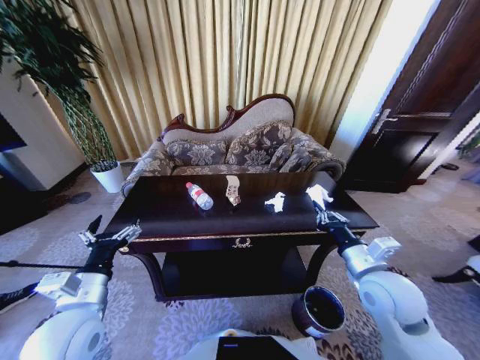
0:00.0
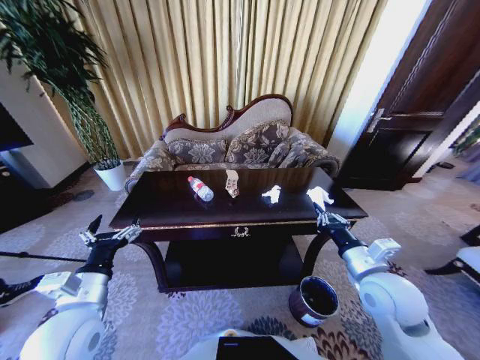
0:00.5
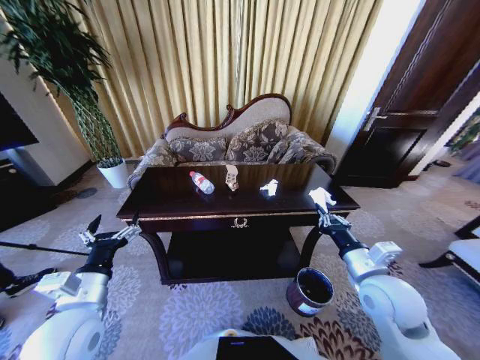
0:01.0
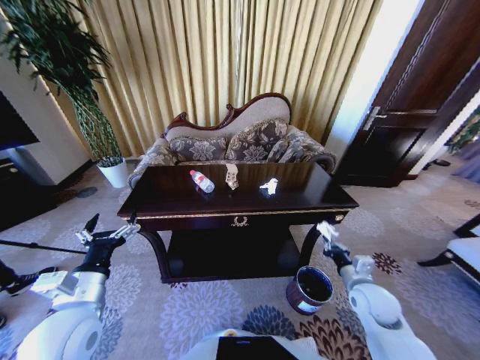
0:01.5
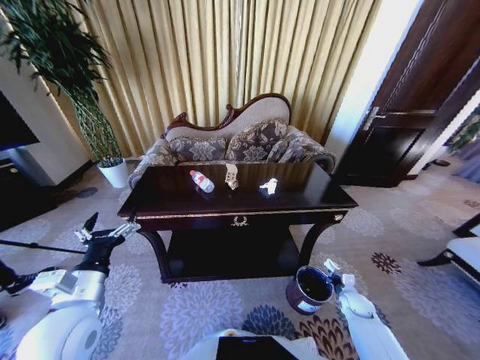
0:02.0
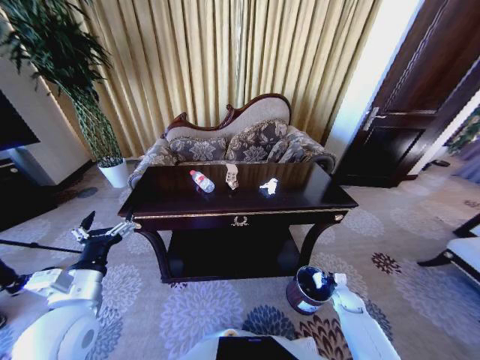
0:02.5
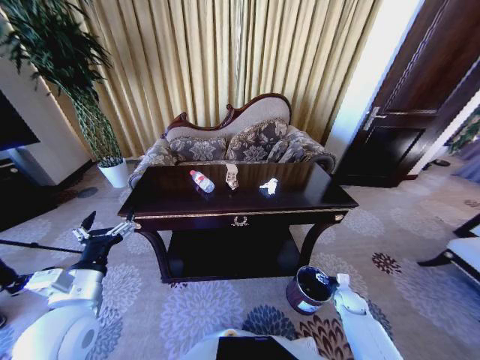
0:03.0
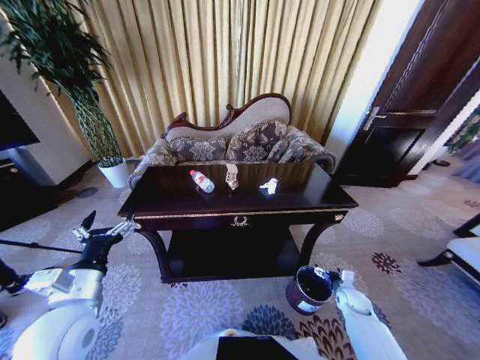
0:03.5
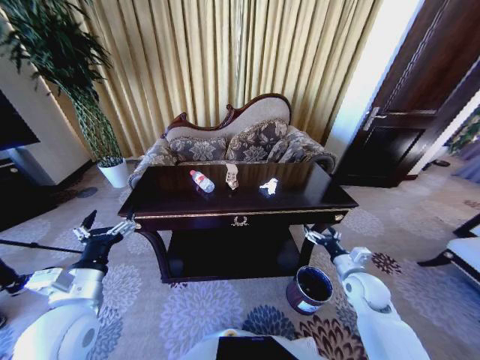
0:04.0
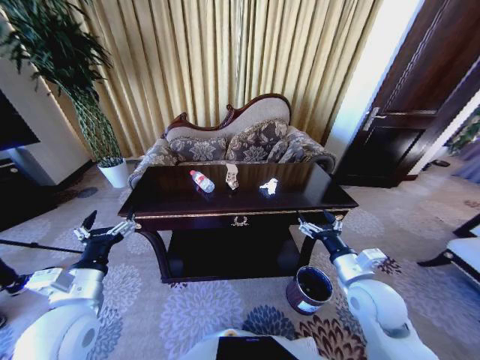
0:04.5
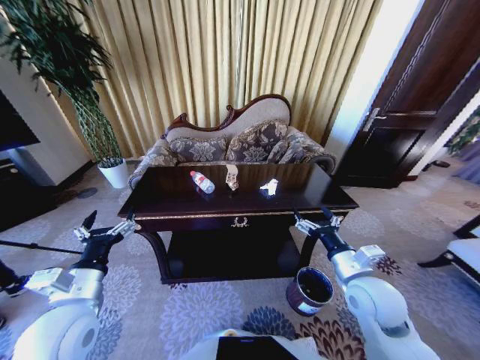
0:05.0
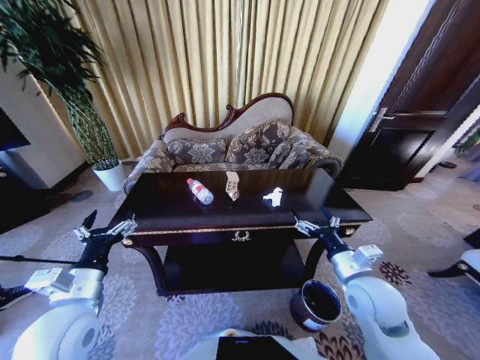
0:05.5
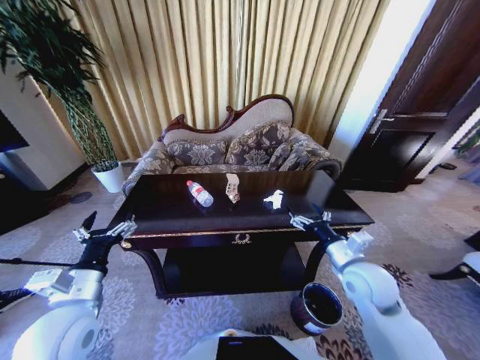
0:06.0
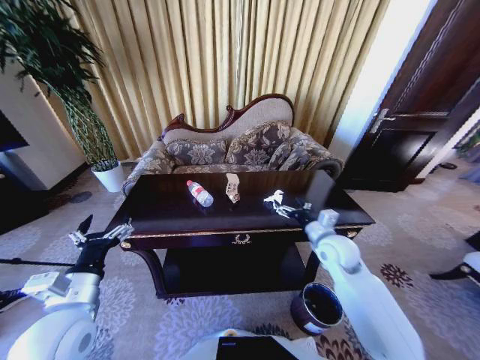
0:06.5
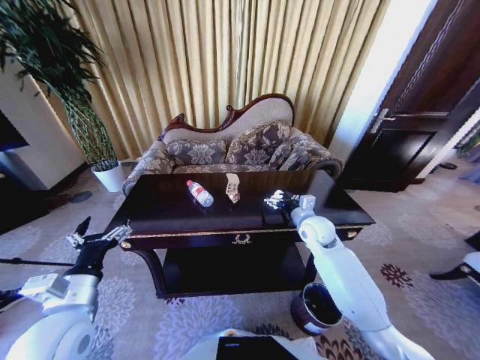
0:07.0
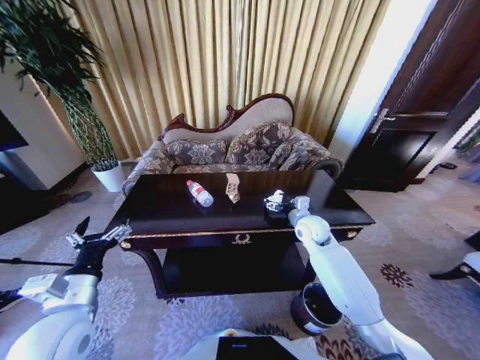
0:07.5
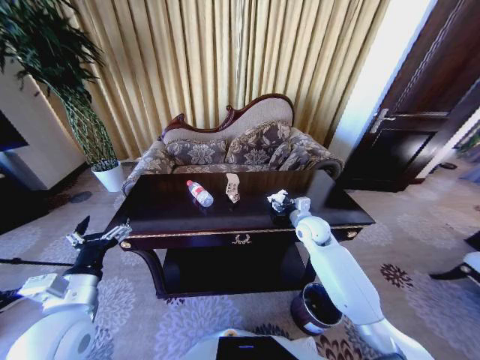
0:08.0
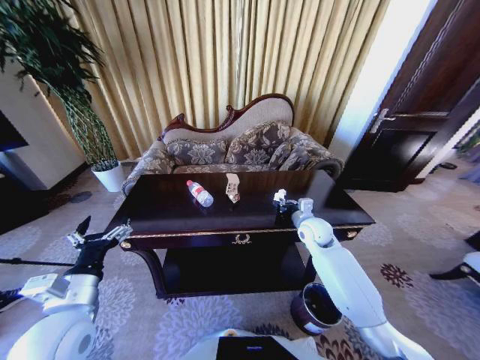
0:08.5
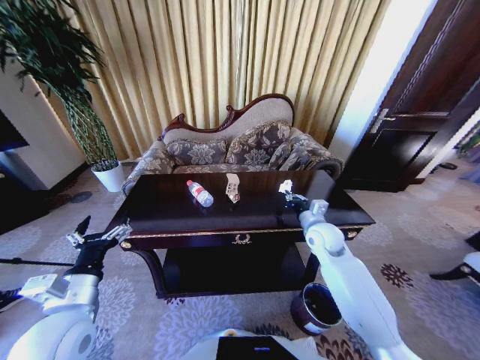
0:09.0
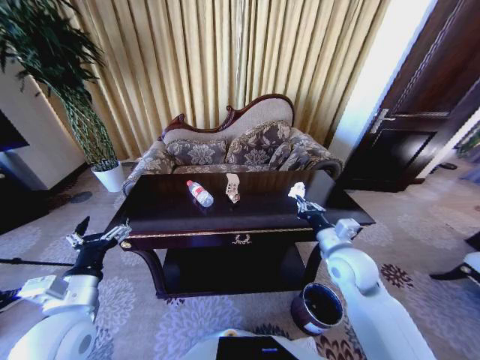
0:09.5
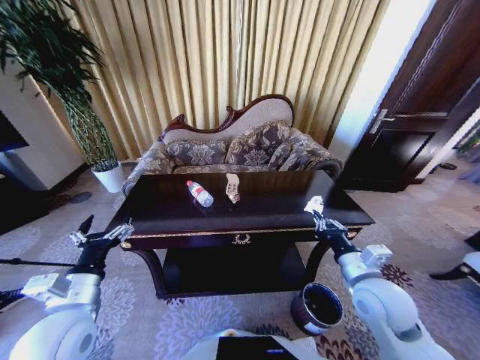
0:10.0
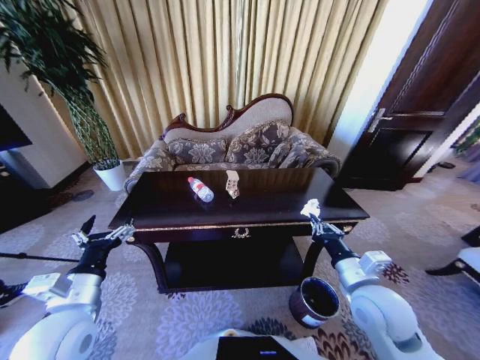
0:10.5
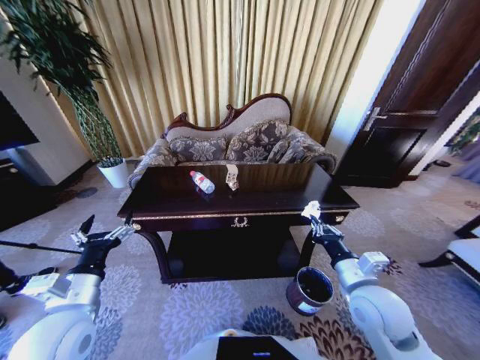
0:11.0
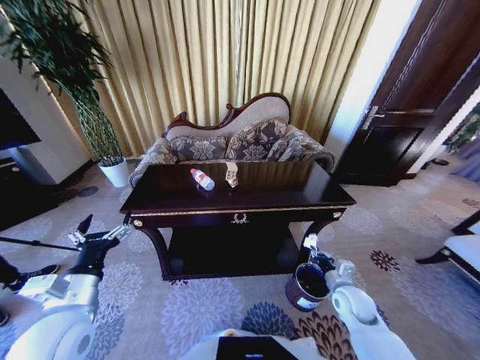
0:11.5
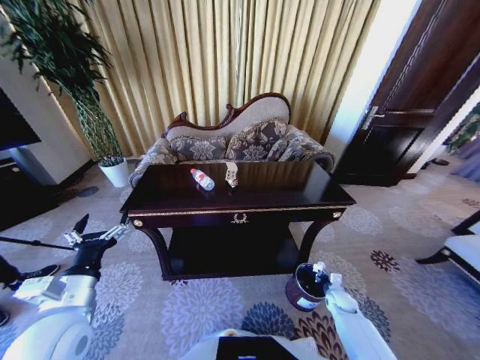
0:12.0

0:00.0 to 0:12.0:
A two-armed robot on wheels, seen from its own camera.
Task of the whole recording: Move to the front of the table and place the trash on the table into the trash bin.
0:00.0 to 0:02.0: The right gripper moves downward and to the right, roughly 35 cm.
0:02.0 to 0:04.0: The right gripper is displaced upward by approximately 15 cm, and opens.
0:04.0 to 0:06.0: The right gripper travels upward and to the left by about 15 cm.
0:06.0 to 0:08.0: The right gripper shifts about 20 cm forward.
0:08.0 to 0:10.0: The right gripper shifts some 20 cm backward, and closes its fingers.
0:10.0 to 0:12.0: The right gripper is displaced downward by roughly 35 cm.

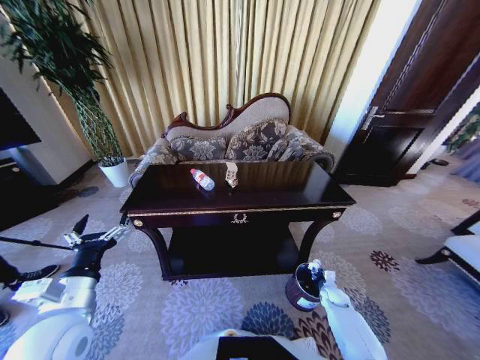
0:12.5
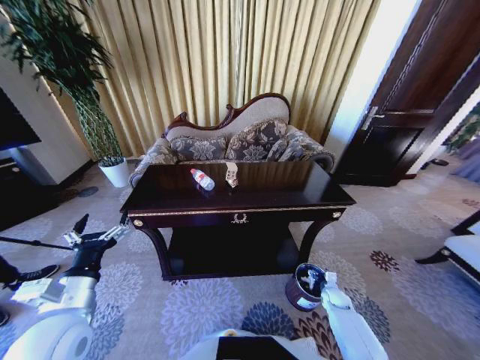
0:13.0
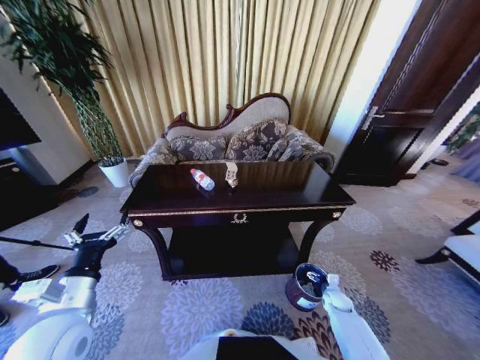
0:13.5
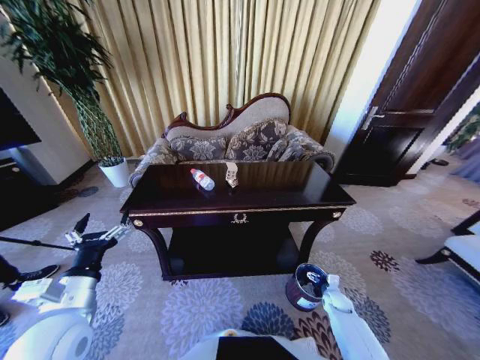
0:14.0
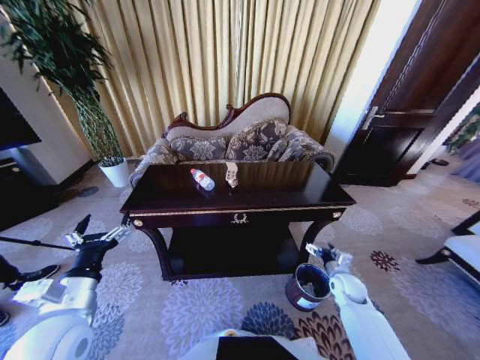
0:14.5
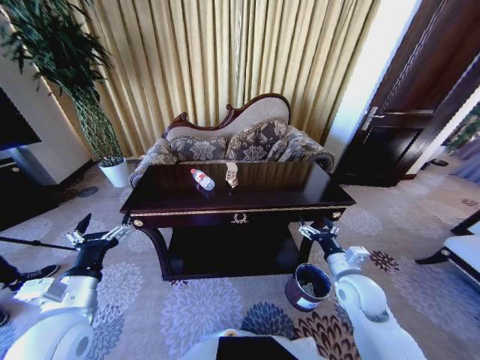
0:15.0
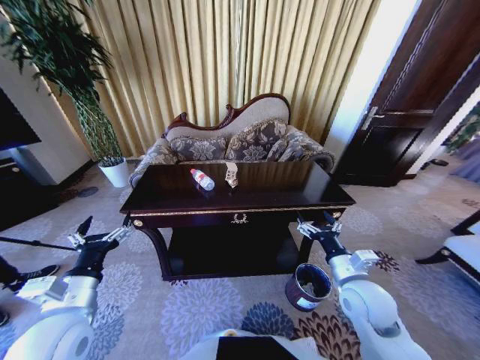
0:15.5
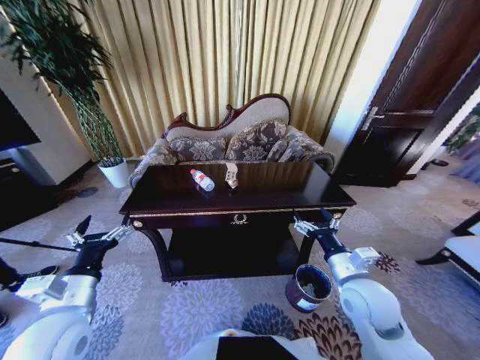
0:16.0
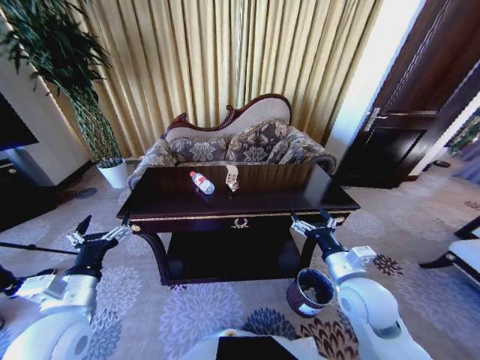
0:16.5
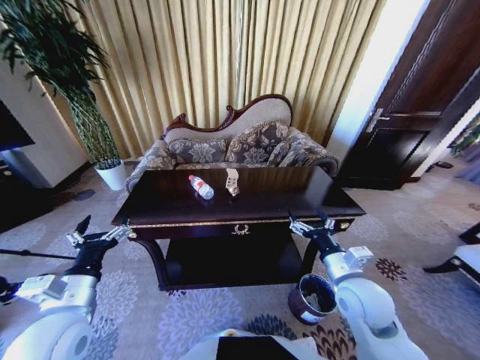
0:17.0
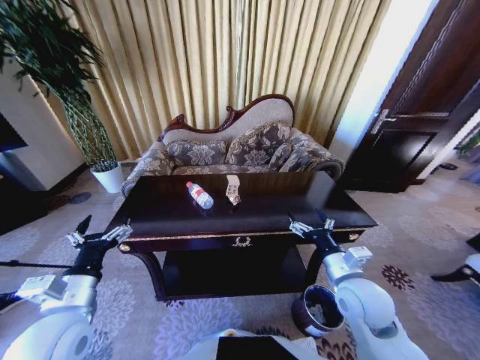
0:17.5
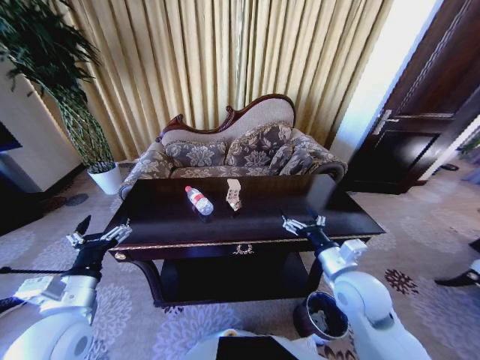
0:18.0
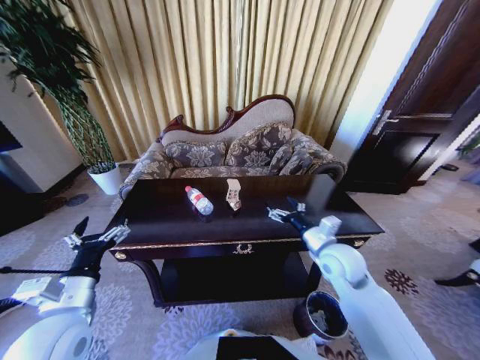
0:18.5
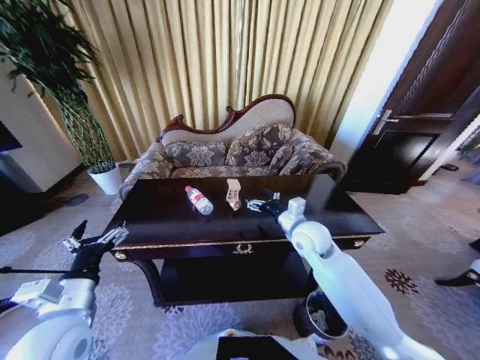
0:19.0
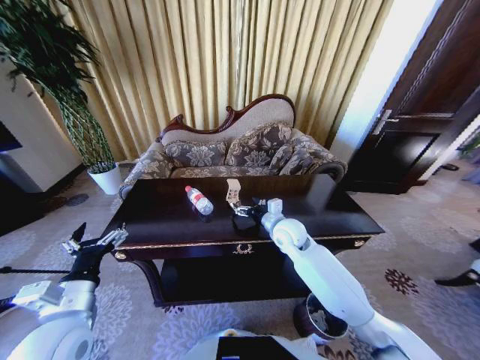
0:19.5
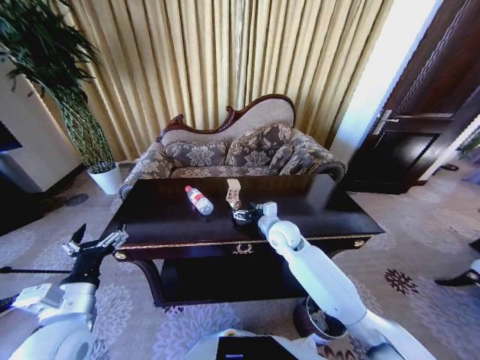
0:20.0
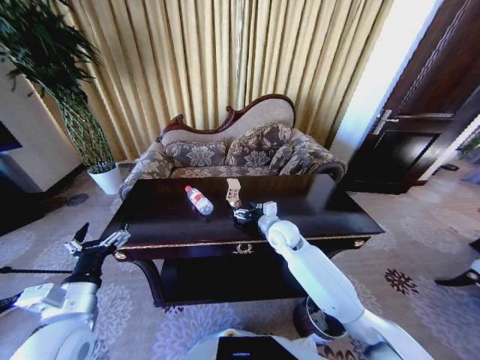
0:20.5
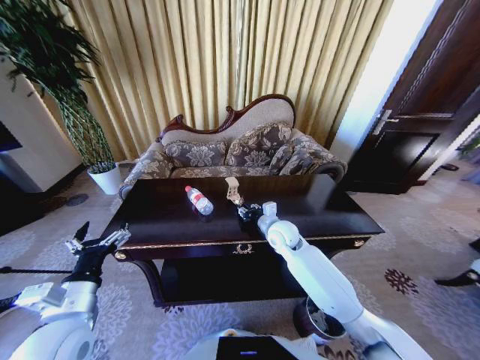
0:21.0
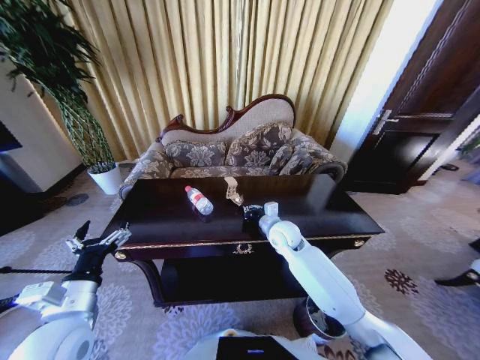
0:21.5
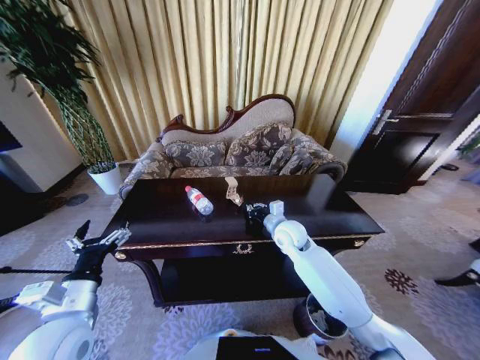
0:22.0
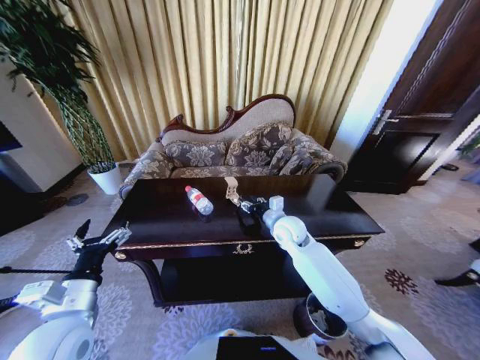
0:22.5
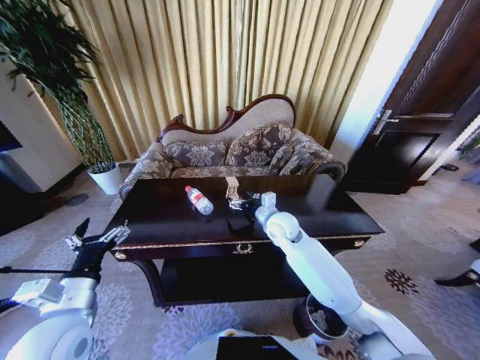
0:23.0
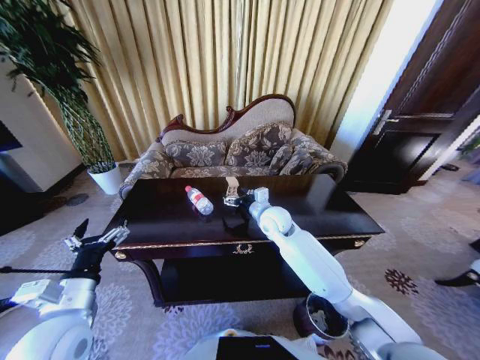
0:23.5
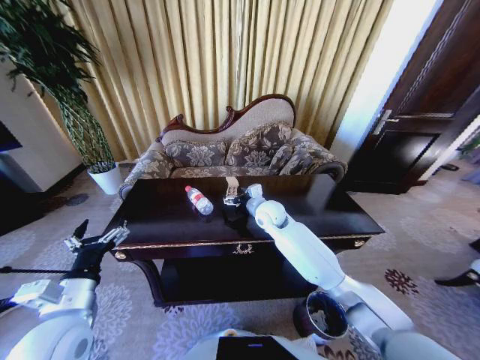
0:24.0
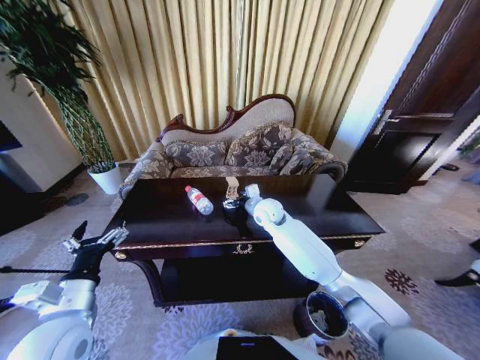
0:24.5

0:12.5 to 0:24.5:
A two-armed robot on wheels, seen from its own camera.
Task of the whole recording: Move to the front of the table and place the trash on the table into the trash bin.
0:12.5 to 0:14.5: The right gripper is displaced upward by approximately 15 cm, and opens its fingers.
0:14.5 to 0:16.5: The right gripper goes about 25 cm upward, to the left and backward.
0:16.5 to 0:18.5: The right gripper travels forward by approximately 10 cm.
0:18.5 to 0:20.5: The right gripper goes some 15 cm forward and to the left.
0:20.5 to 0:22.5: The right gripper closes, then reopens.
0:22.5 to 0:24.5: The right gripper is displaced forward and to the left by approximately 10 cm, and opens up.

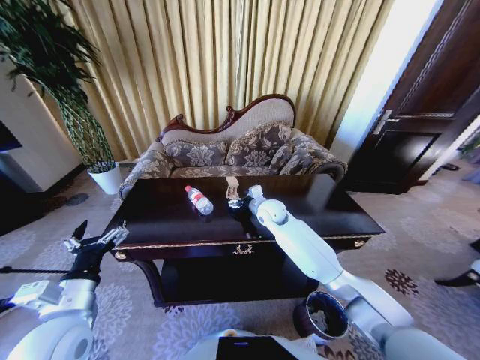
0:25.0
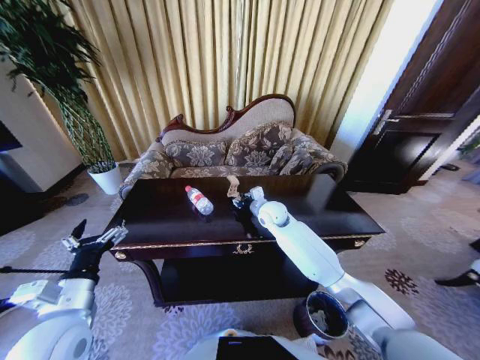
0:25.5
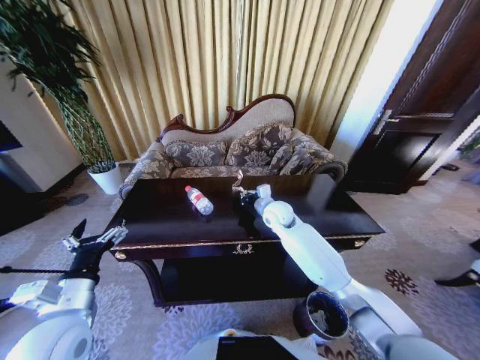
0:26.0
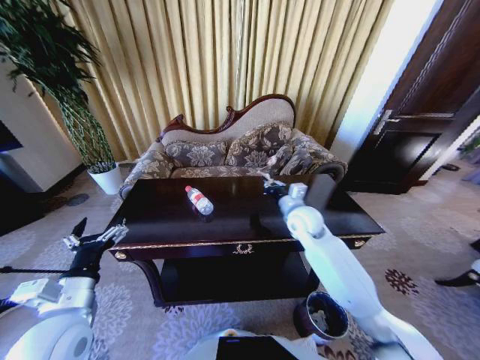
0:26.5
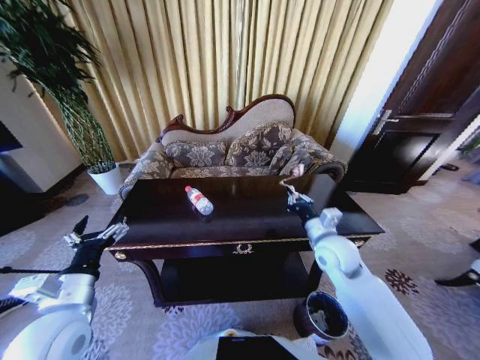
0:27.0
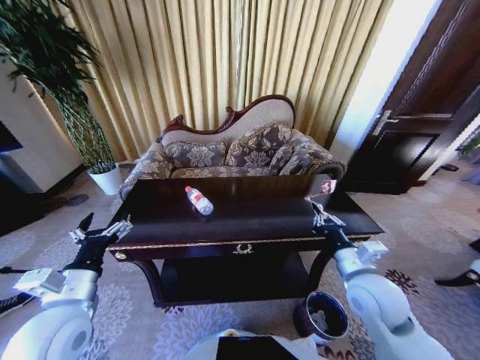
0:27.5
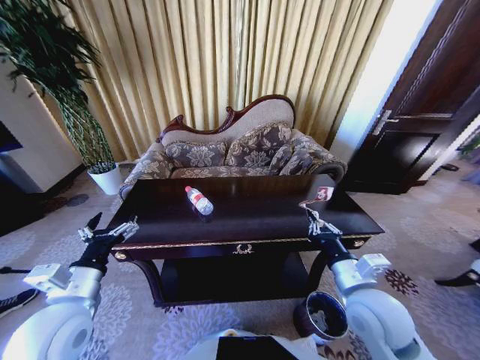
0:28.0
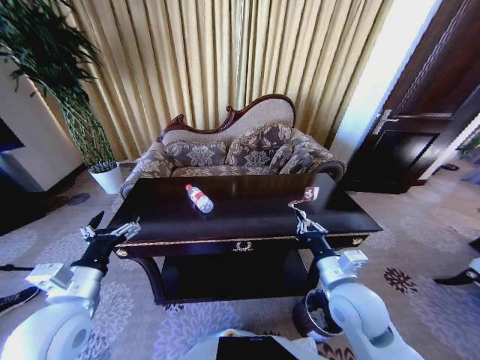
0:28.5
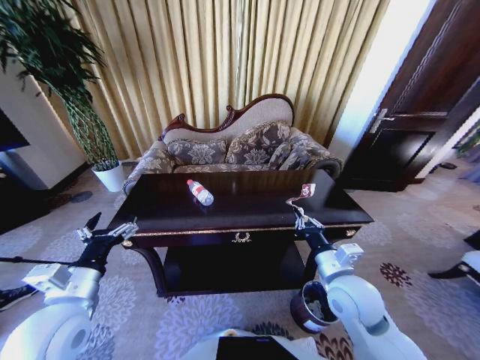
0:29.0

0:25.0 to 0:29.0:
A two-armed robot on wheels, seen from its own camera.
Task of the whole recording: Move to the front of the table and place the trash on the table into the trash bin.
0:25.0 to 0:27.0: The right gripper is displaced backward and to the right by roughly 20 cm, and closes up.
0:27.0 to 0:29.0: The right gripper moves backward, approximately 10 cm.
